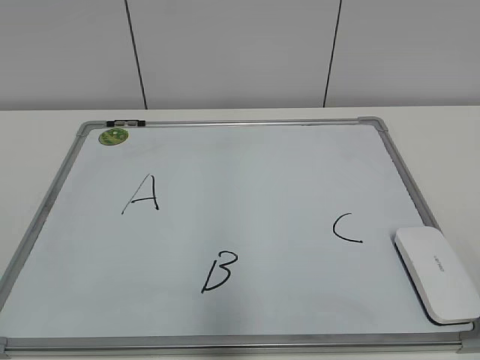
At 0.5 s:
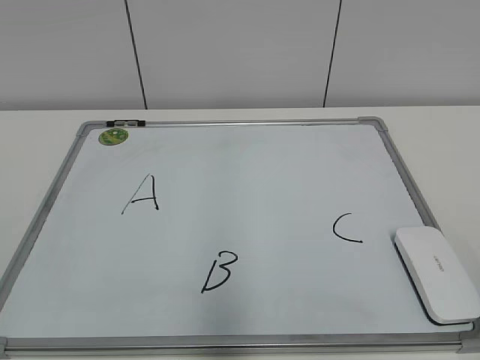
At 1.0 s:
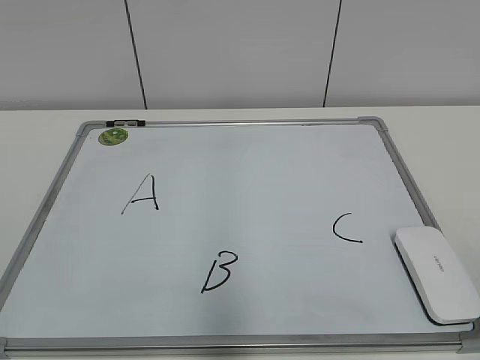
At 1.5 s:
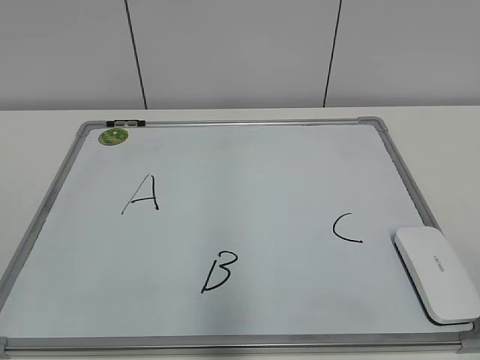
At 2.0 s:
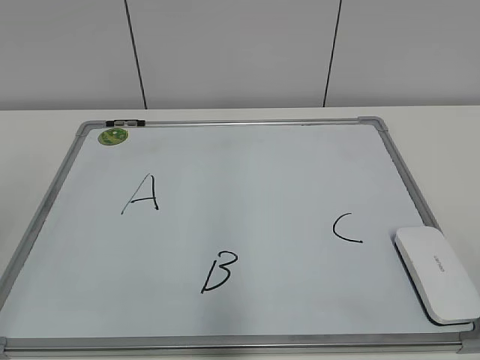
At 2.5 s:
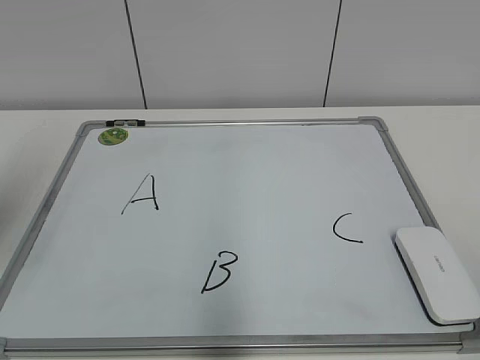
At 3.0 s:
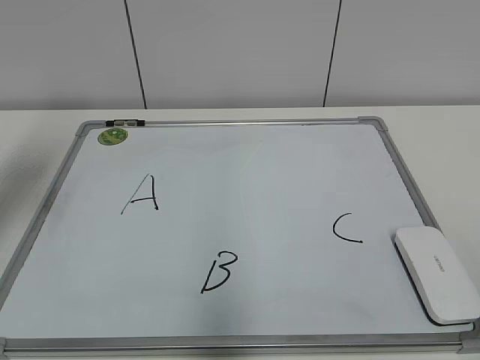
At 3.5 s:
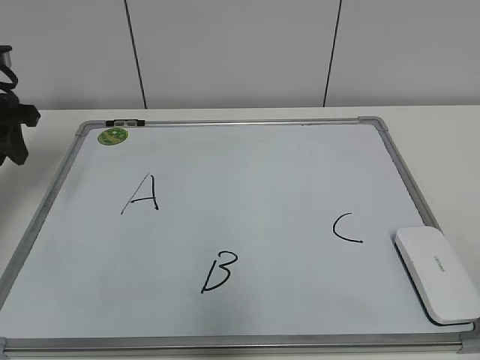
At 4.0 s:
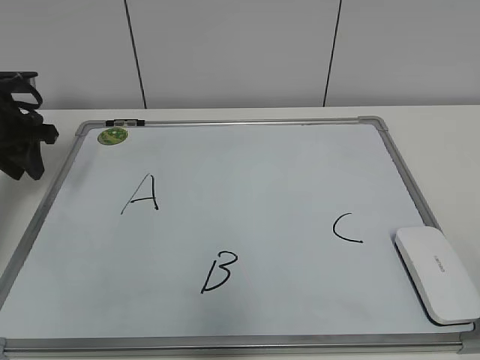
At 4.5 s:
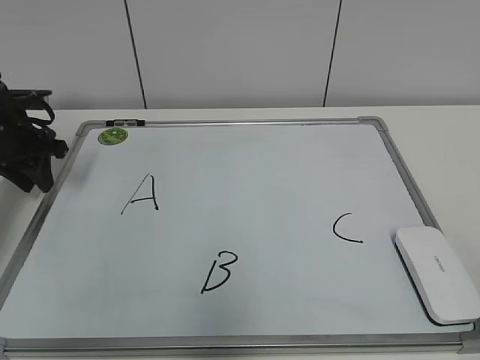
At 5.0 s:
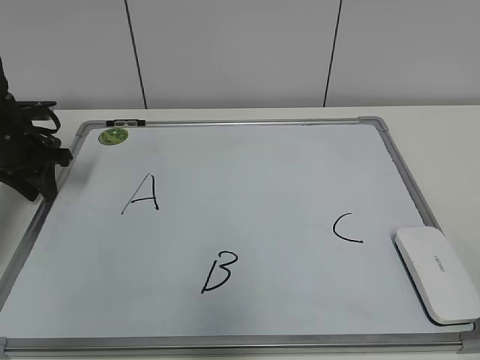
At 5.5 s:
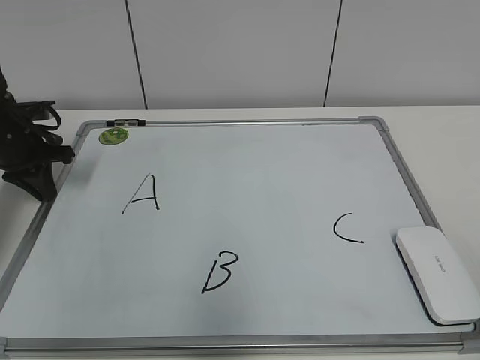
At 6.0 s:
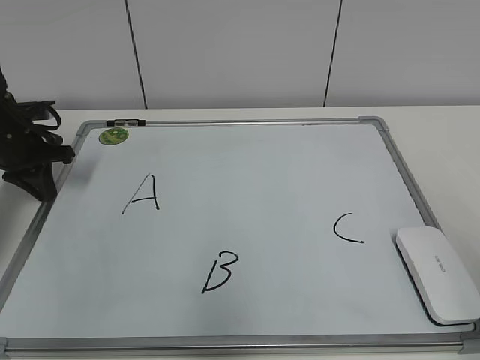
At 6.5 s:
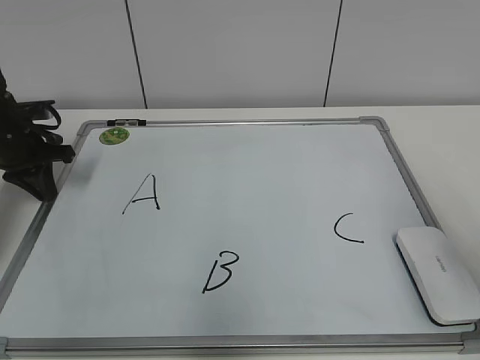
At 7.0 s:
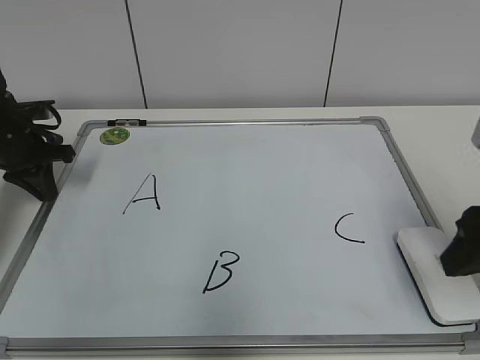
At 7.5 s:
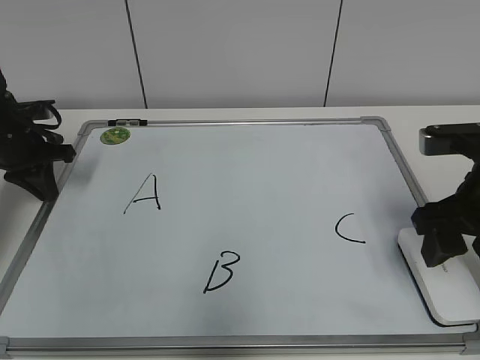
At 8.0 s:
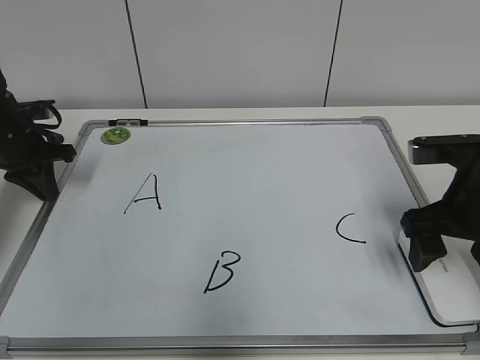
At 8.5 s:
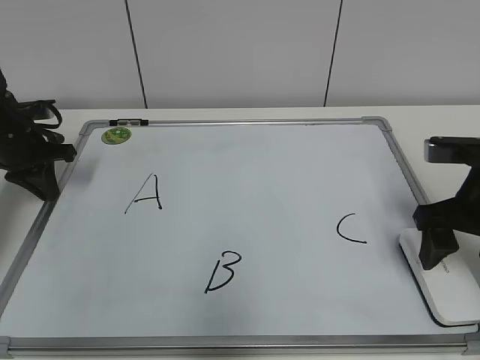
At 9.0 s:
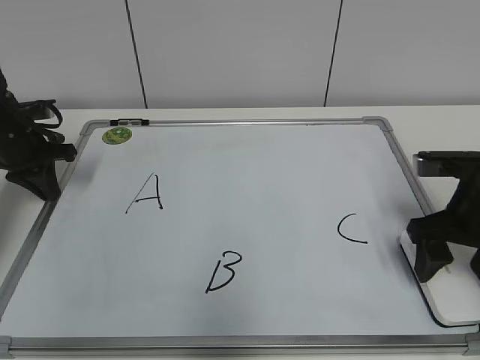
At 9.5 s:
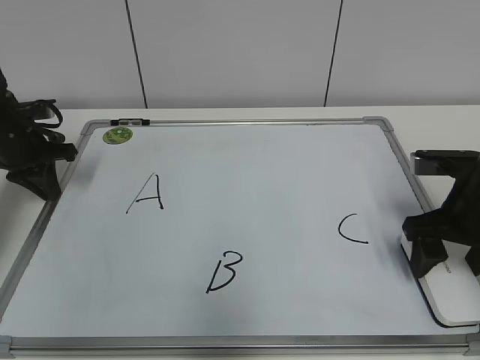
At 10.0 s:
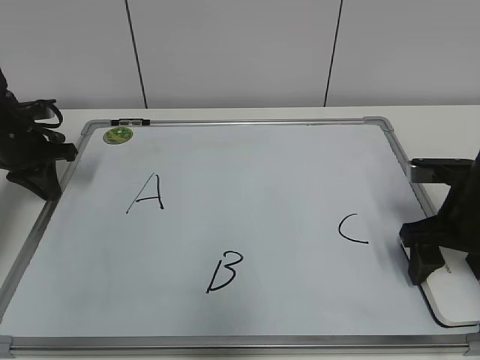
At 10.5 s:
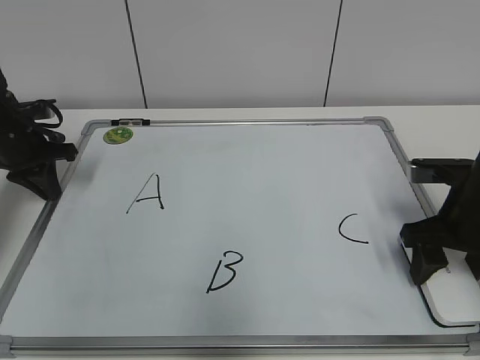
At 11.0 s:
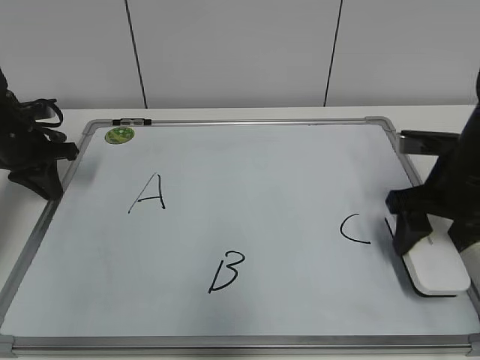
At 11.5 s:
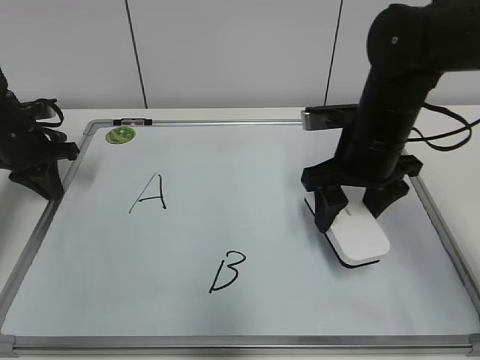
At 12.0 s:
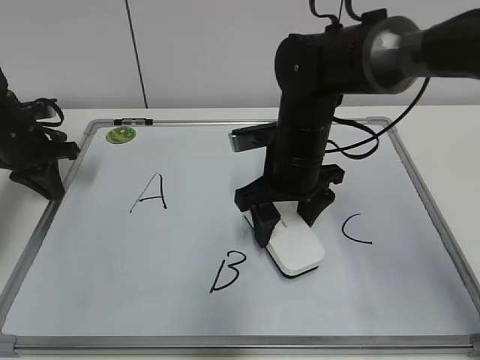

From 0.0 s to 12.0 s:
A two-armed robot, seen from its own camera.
Task of the whole recording: pick up the eraser on the blackboard and erase the letter "B".
Step, from 0.0 s to 6.5 s: Hold the drawing board steady with your left hand.
Step, from 7.0 s to 10.5 s: Grab the eraser with your right hand.
From 2.0 s to 4.0 s: The left gripper moves forward and downward, about 35 cm.
From 4.0 s to 6.0 s: The left gripper travels downward by approximately 5 cm, and closes up.
From 6.0 s to 8.0 s: The right gripper shifts approximately 25 cm forward and downward, and opens its fingers.
From 8.0 s to 10.0 s: The right gripper closes up.
From 10.0 s to 12.0 s: The right gripper goes roughly 20 cm to the left, and closes.

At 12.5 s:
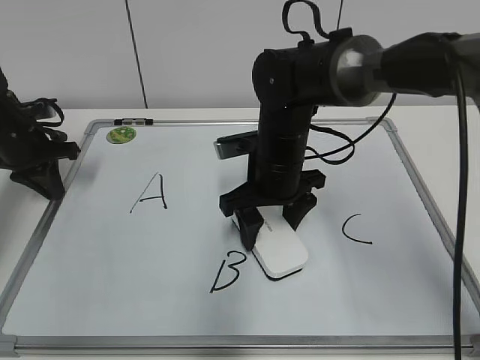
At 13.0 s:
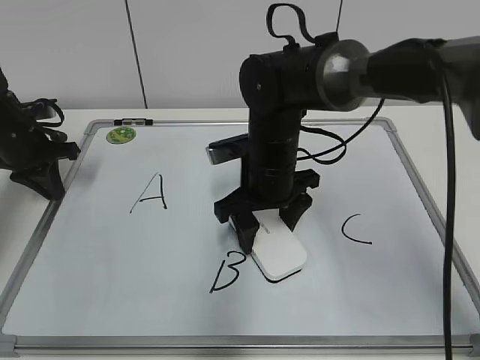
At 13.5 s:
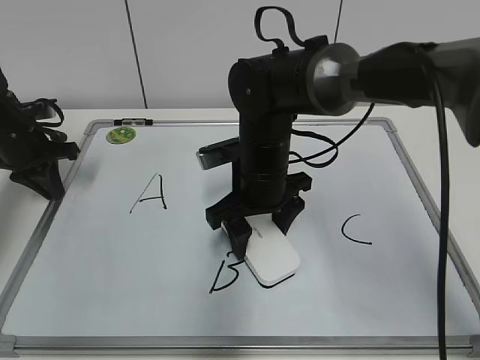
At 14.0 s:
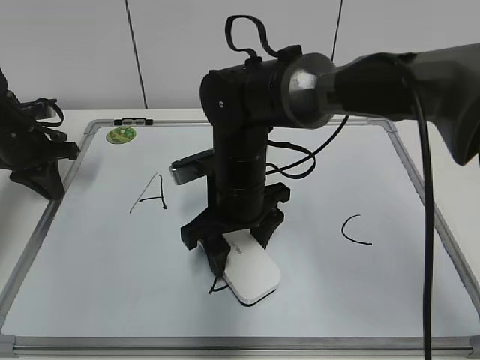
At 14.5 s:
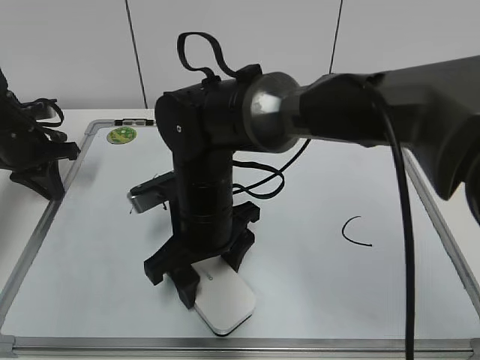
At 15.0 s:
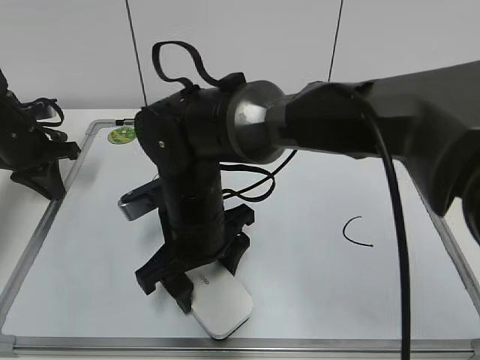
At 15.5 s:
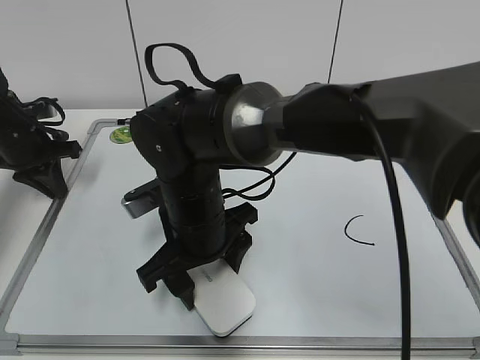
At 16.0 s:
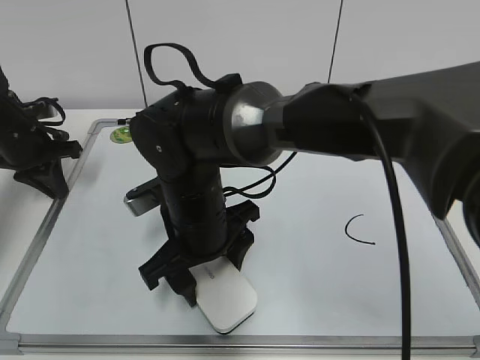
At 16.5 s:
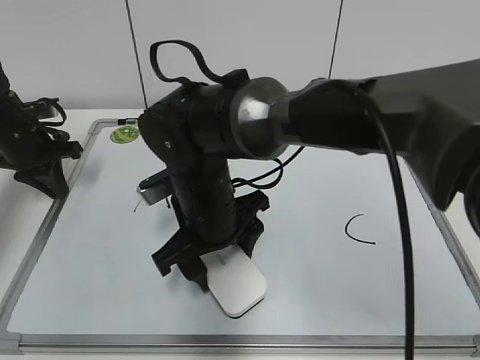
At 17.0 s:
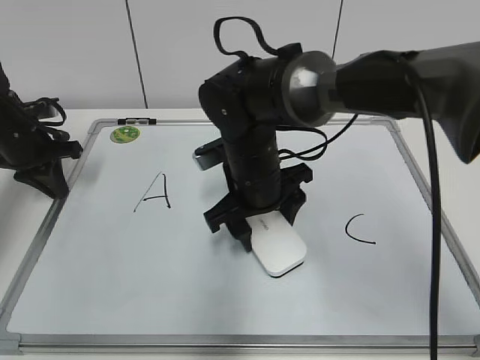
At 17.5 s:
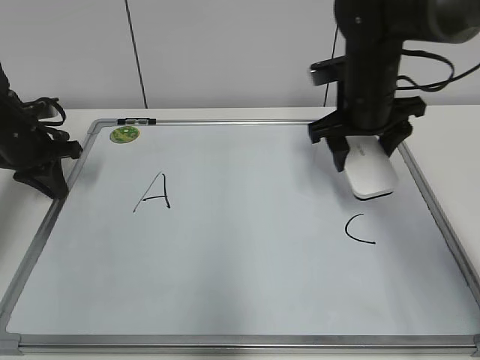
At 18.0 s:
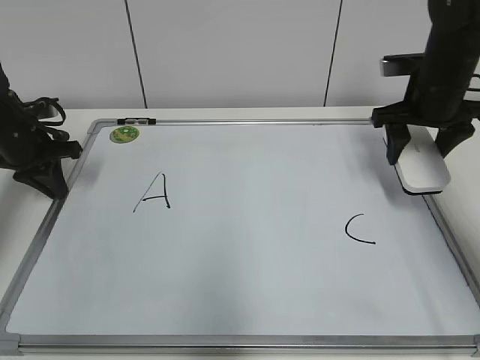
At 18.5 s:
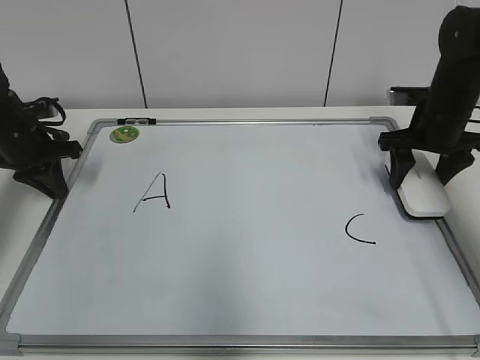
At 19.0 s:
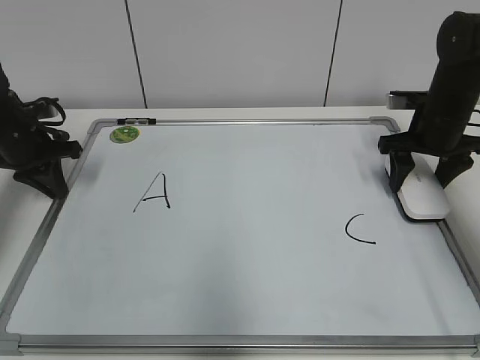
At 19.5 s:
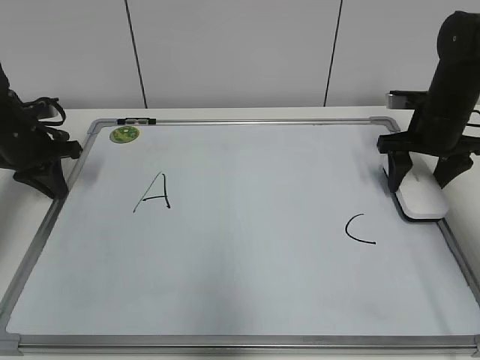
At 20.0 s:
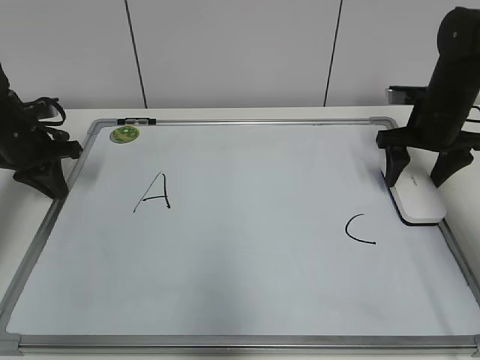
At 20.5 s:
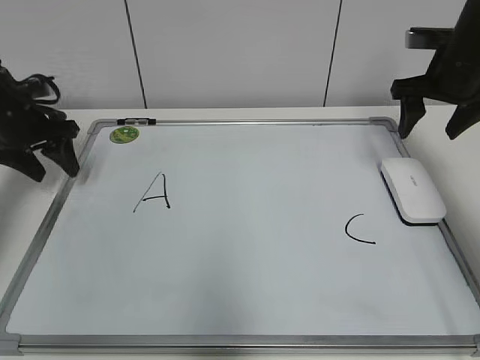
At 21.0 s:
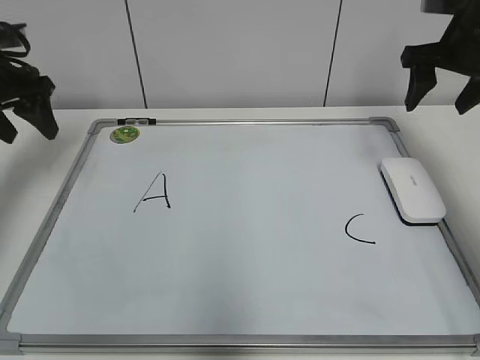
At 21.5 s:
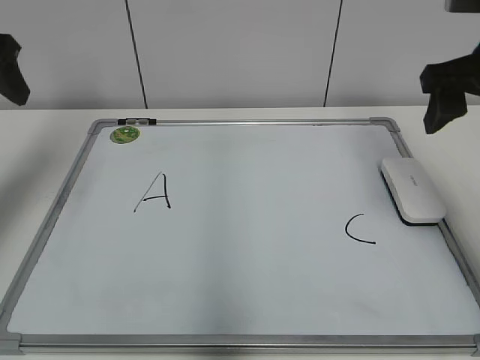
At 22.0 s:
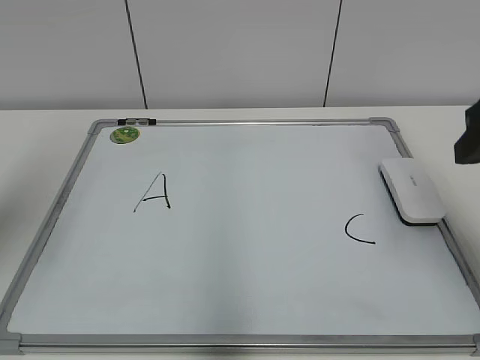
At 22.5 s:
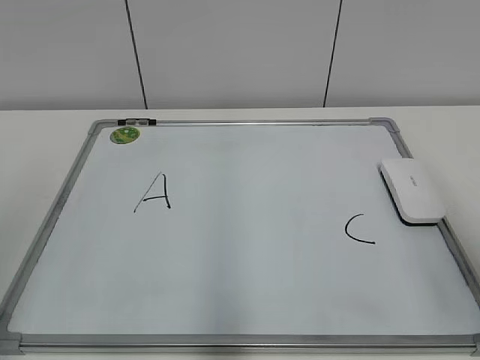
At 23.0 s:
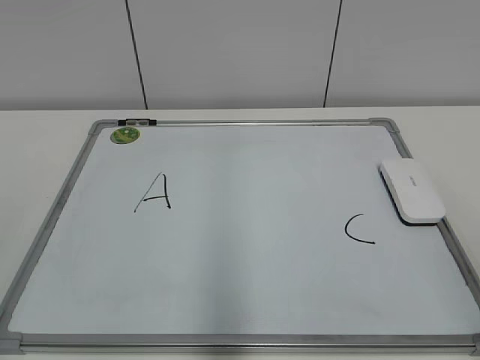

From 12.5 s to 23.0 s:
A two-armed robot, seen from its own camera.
Task of the whole recording: pick up the eraser on the blackboard and erase the letter "B".
Step, from 12.5 s to 14.5 s: Erase the letter B with your right hand.
Step, from 15.0 s to 19.5 s: Put down the eraser with your right hand.
From 12.5 s to 14.5 s: The right gripper heads to the left and backward, covering approximately 10 cm.
From 14.5 s to 16.5 s: The grippers stay close to where they were, moving slightly.
From 16.5 s to 19.0 s: The right gripper travels to the right and forward by approximately 35 cm.
From 19.0 s to 21.0 s: The grippers both shift upward by approximately 10 cm. The right gripper opens its fingers. The left gripper opens.
From 21.0 s to 23.0 s: Both grippers travel together backward, some 40 cm.

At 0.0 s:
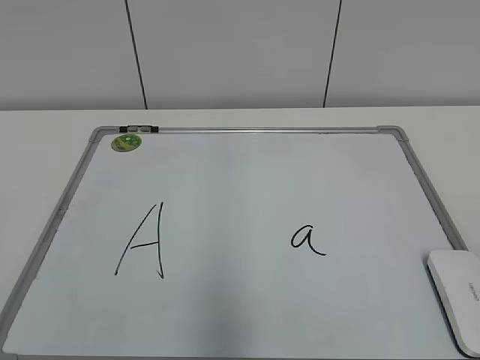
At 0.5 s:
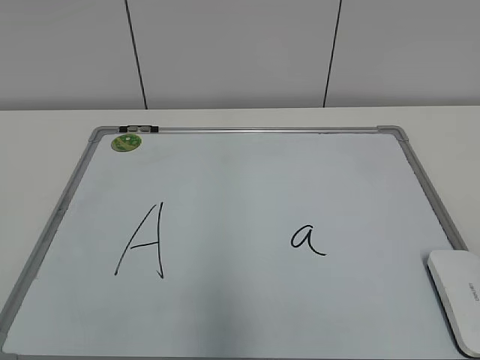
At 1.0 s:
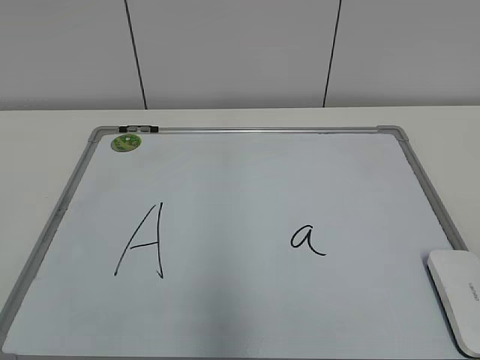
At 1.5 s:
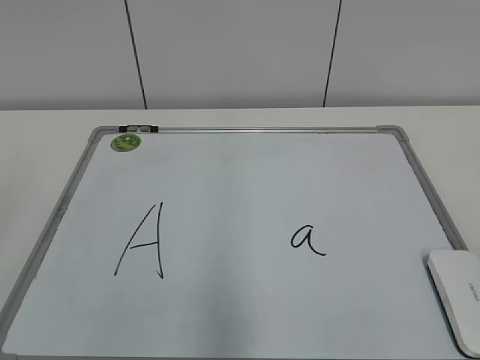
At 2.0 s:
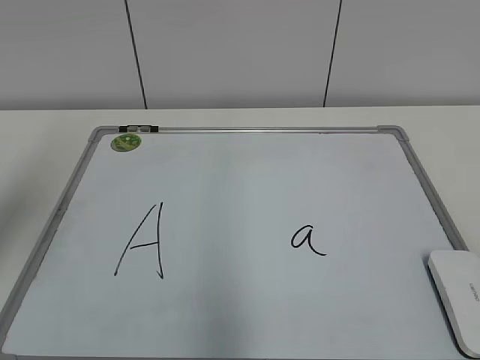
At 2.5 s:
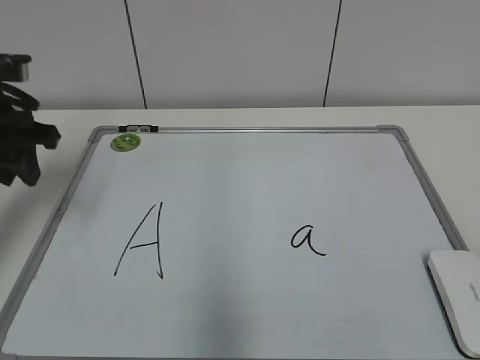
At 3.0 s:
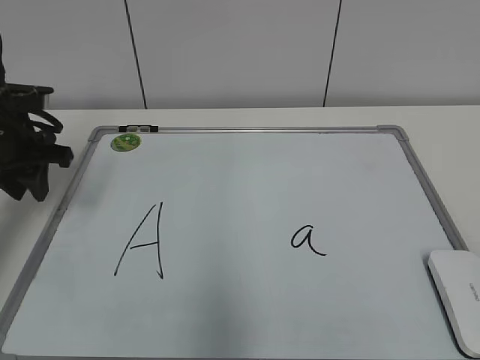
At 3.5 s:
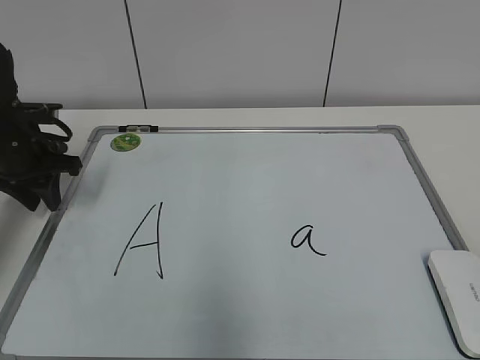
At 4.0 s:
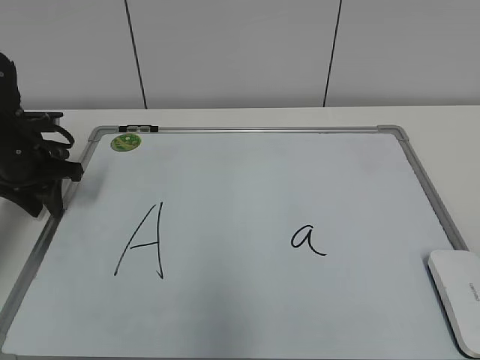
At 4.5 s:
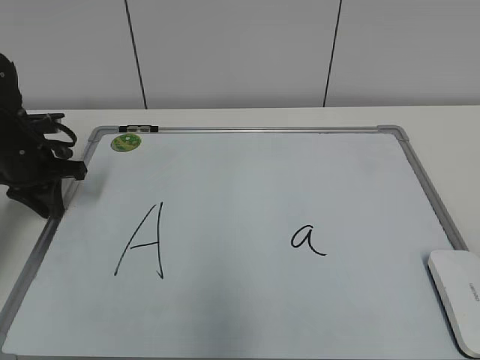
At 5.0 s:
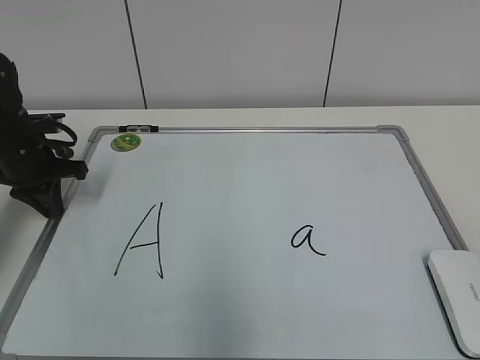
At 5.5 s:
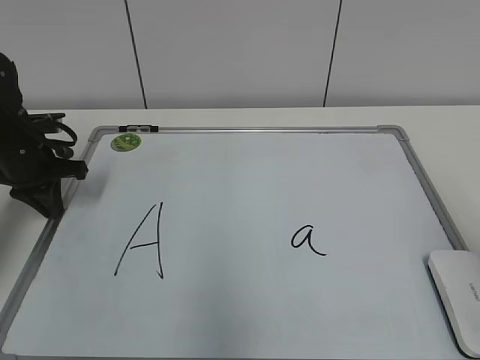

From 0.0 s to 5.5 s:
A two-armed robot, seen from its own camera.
Task of the whole recording: pick up the eraser on the blackboard and erase the letter "a".
Step, from 0.0 s to 4.5 s: Hold the drawing board steady with your left hand.
From 2.0 s to 3.5 s: The left gripper moves downward and forward, approximately 25 cm.
From 3.5 s to 5.5 s: The left gripper closes up.
